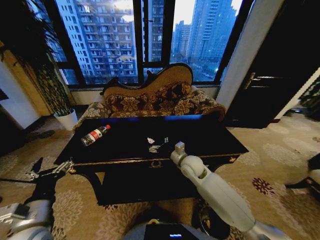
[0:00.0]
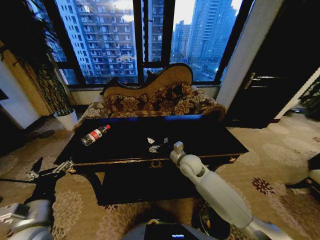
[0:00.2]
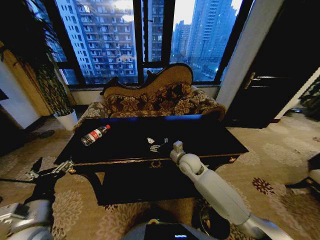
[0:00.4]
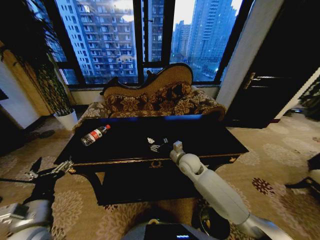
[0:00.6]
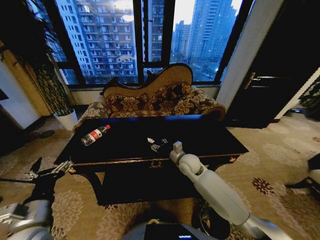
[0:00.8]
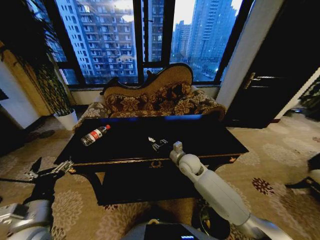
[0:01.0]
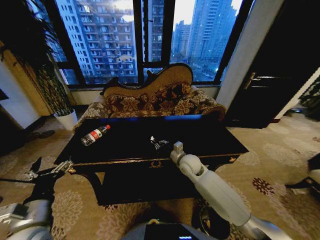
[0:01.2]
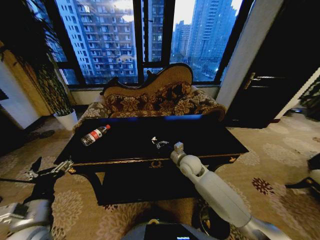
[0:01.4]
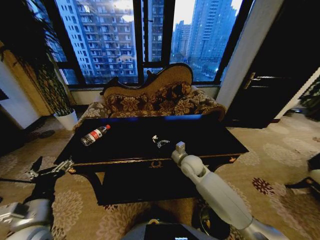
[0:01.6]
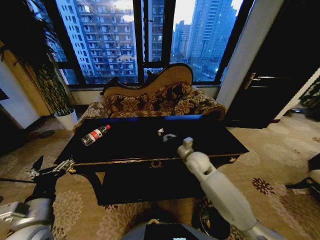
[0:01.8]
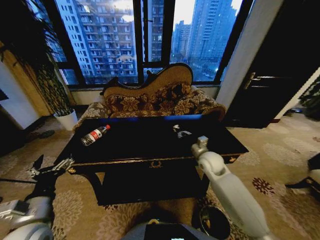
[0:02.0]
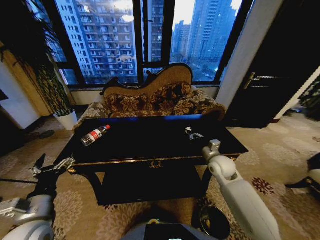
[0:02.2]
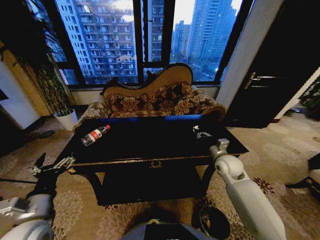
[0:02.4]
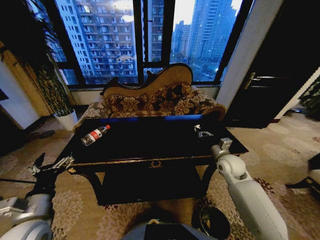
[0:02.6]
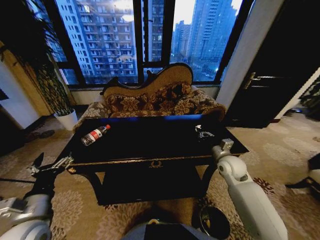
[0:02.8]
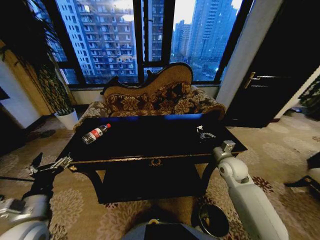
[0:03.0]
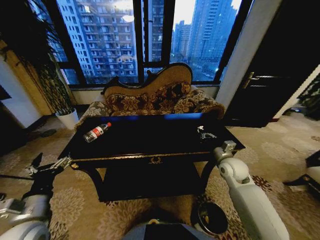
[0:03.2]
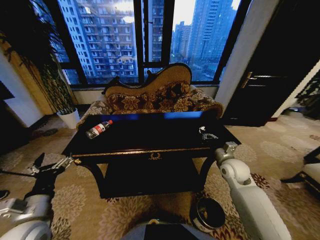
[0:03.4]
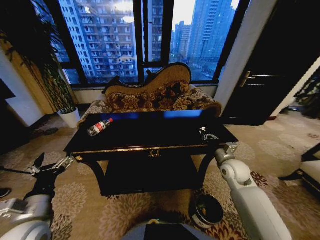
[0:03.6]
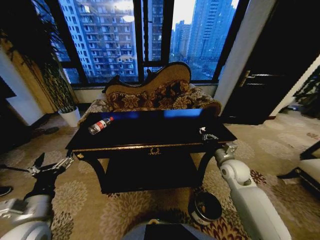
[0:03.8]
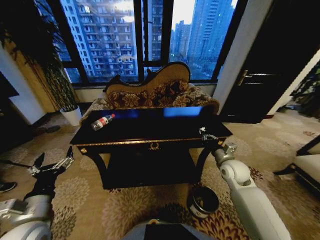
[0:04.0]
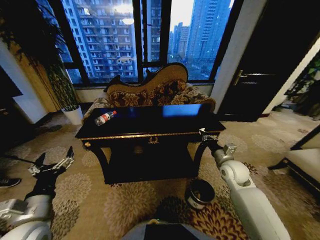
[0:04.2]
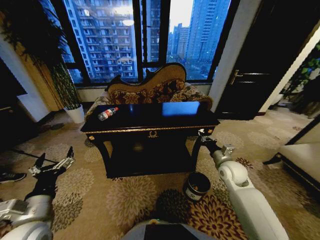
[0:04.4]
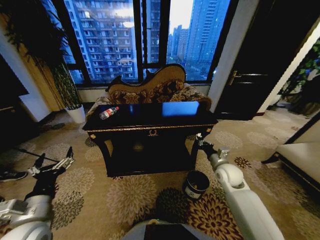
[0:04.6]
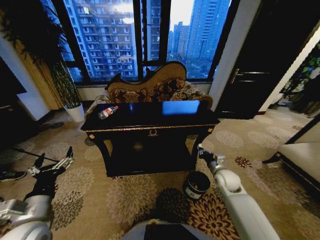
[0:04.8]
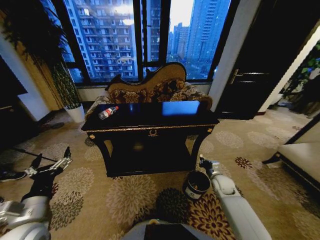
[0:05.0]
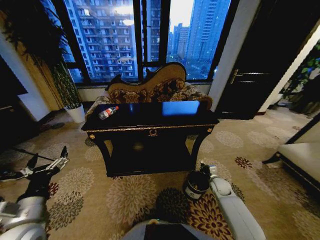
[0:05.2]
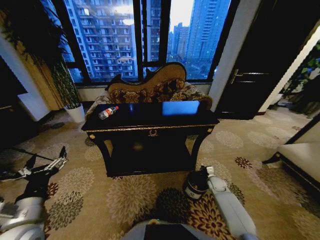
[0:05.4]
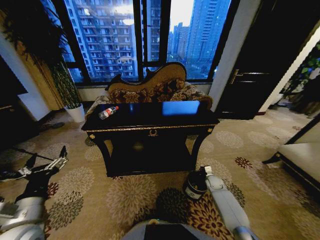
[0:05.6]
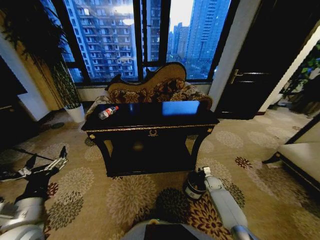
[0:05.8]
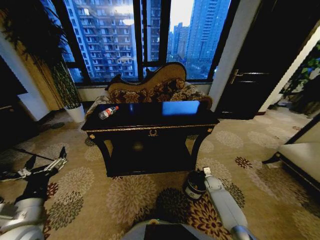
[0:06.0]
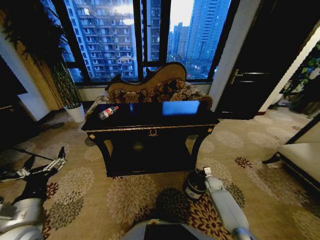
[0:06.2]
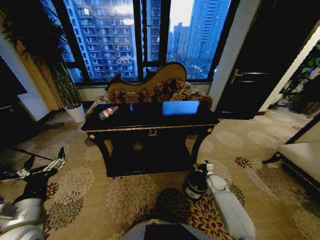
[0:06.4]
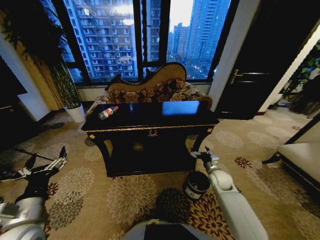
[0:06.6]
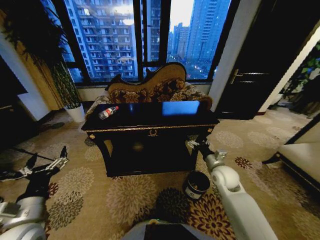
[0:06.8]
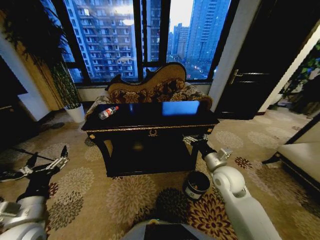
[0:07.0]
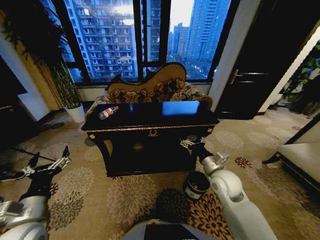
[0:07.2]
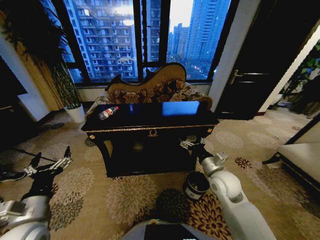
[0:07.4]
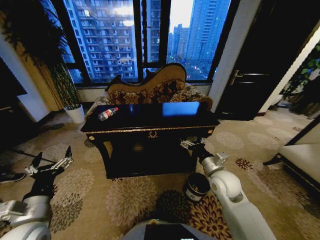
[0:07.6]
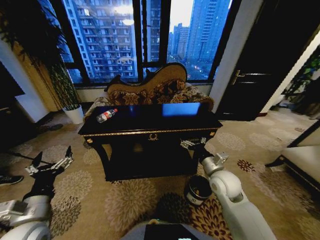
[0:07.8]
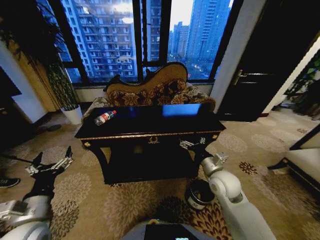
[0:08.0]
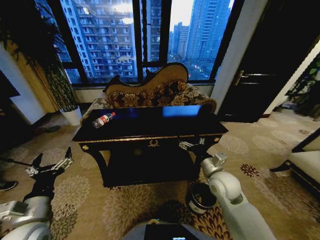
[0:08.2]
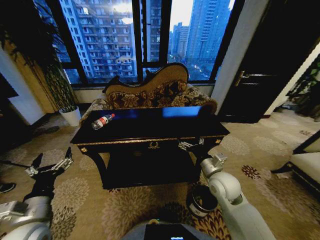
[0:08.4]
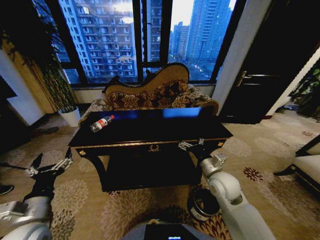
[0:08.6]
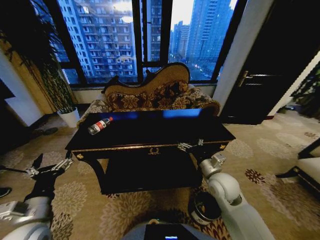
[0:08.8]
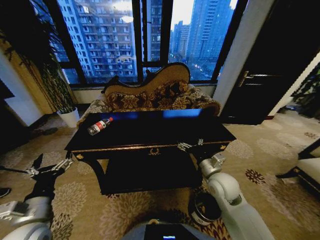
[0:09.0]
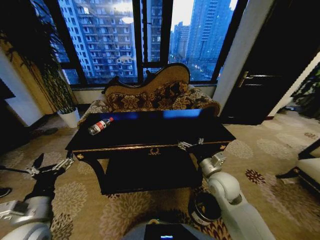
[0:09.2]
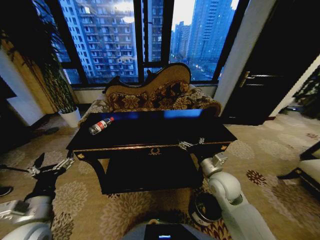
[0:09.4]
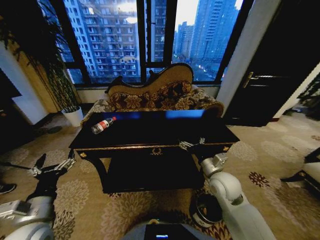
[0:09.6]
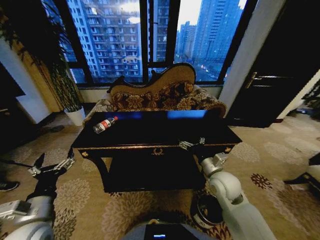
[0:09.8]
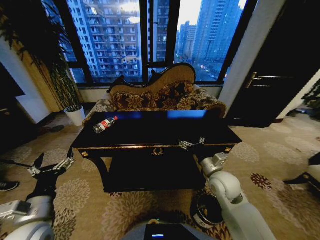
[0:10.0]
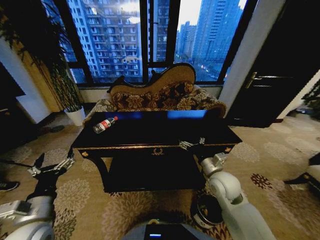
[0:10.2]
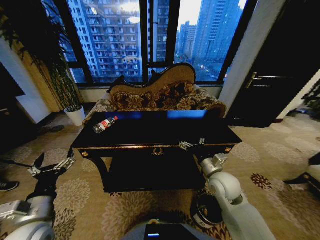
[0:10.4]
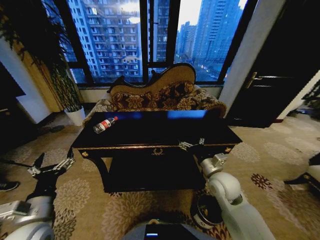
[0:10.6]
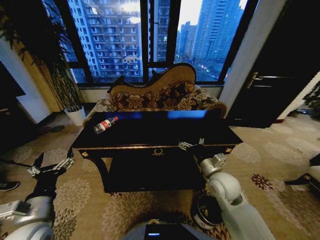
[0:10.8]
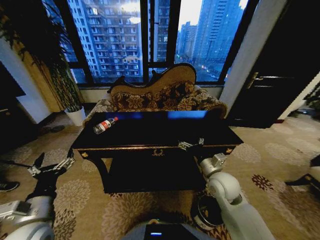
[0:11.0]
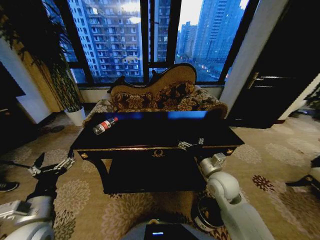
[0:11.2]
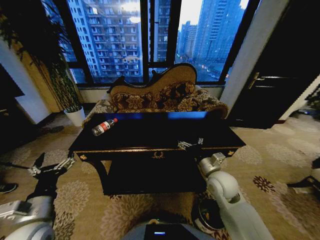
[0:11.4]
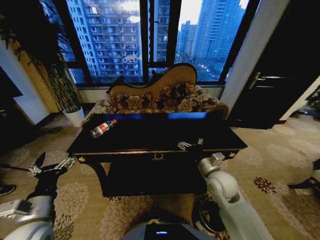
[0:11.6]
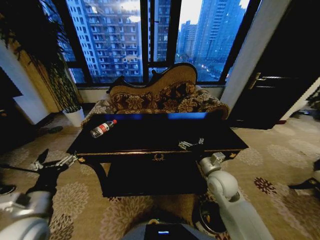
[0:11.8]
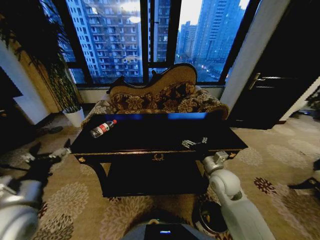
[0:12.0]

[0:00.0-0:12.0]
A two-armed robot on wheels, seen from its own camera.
Task of the whole recording: Move to the front of the table and place the trash on the table into the trash bin.
0:00.0 to 0:01.6: The right gripper closes.
0:01.6 to 0:03.0: The right gripper heads to the right, covering about 15 cm.
0:04.4 to 0:06.0: The right gripper heads downward, covering some 25 cm, and opens.
0:06.0 to 0:07.6: The right gripper is displaced upward and to the left by approximately 30 cm, and opens up.
0:10.4 to 0:12.0: The left gripper heads upward, covering some 5 cm.

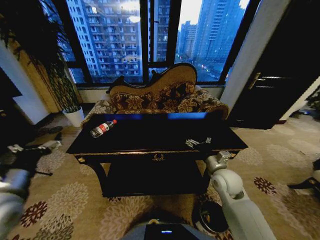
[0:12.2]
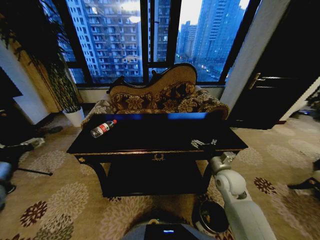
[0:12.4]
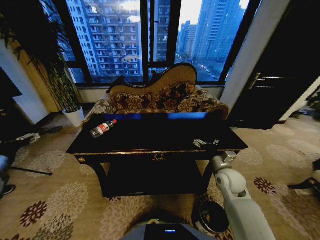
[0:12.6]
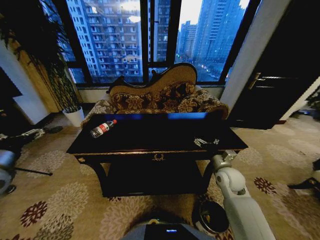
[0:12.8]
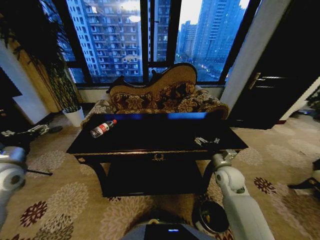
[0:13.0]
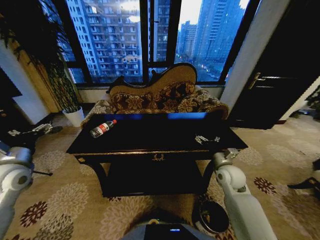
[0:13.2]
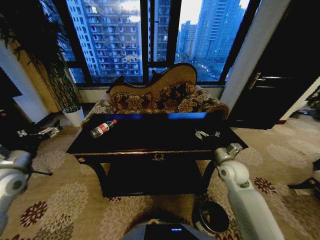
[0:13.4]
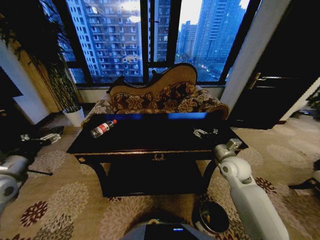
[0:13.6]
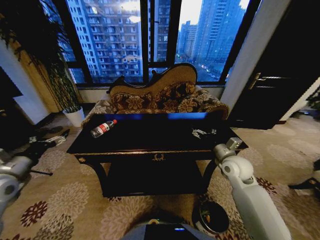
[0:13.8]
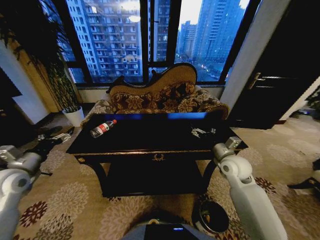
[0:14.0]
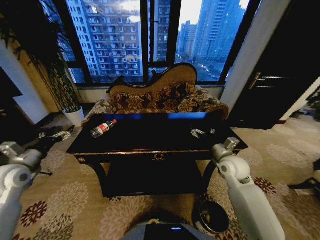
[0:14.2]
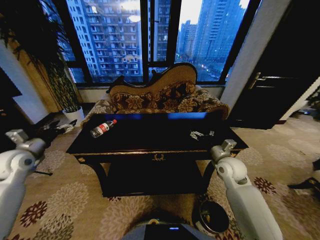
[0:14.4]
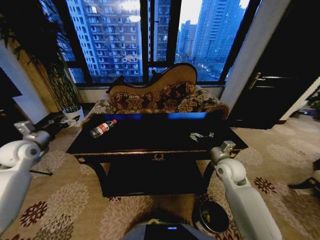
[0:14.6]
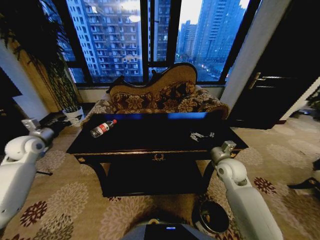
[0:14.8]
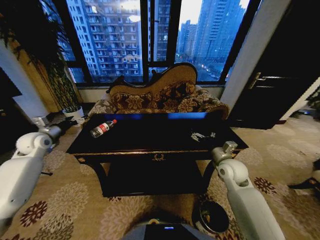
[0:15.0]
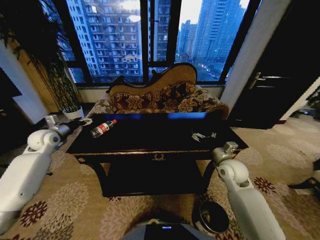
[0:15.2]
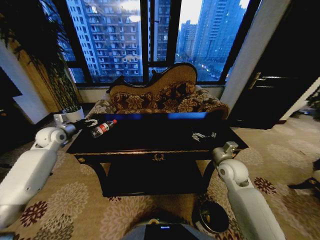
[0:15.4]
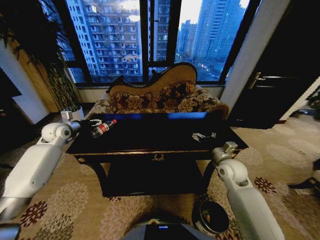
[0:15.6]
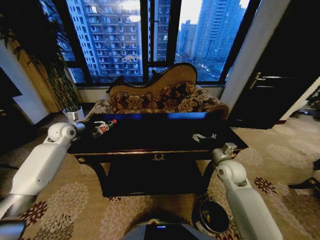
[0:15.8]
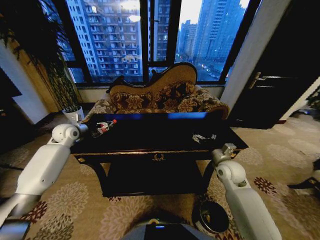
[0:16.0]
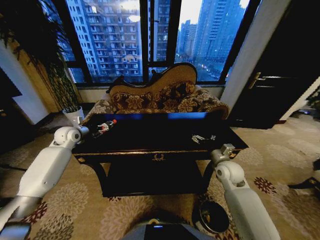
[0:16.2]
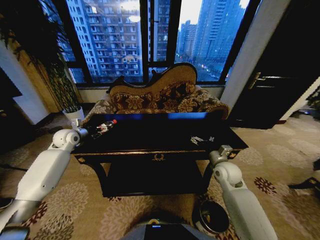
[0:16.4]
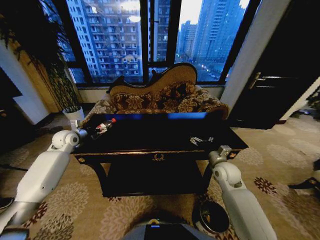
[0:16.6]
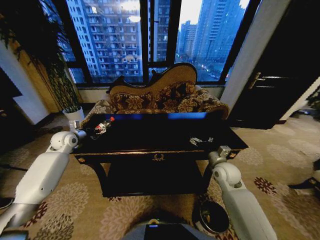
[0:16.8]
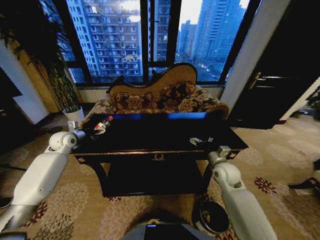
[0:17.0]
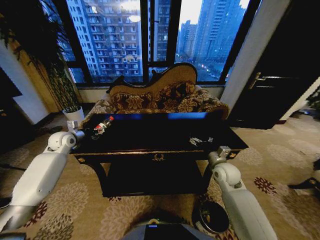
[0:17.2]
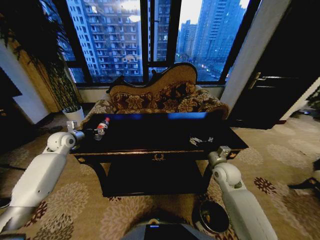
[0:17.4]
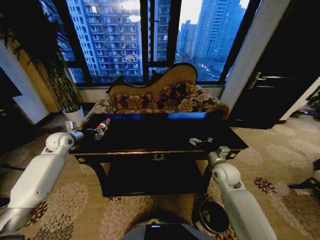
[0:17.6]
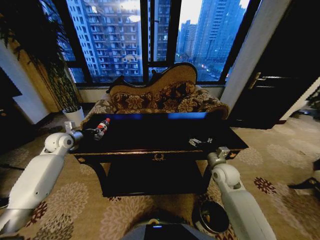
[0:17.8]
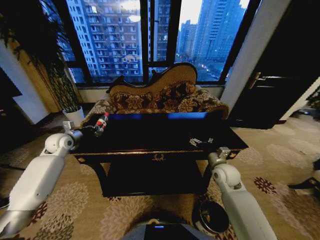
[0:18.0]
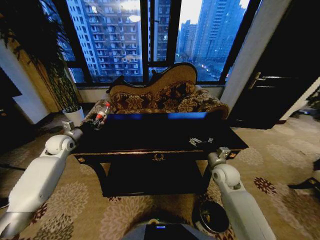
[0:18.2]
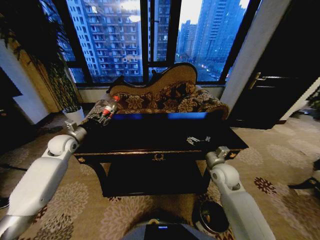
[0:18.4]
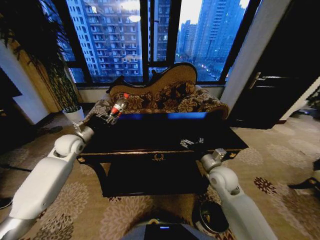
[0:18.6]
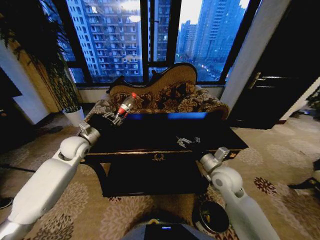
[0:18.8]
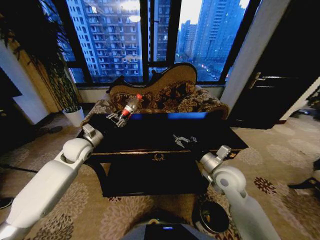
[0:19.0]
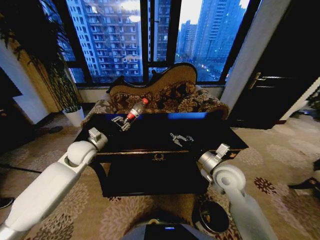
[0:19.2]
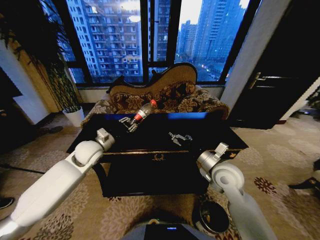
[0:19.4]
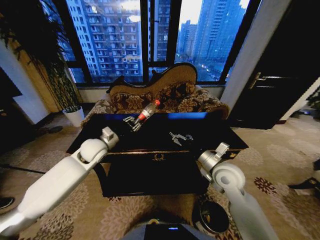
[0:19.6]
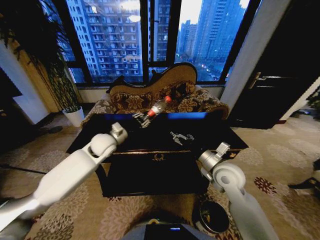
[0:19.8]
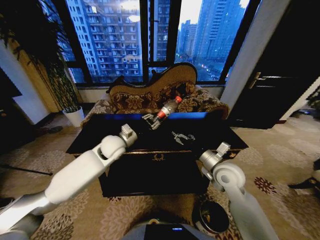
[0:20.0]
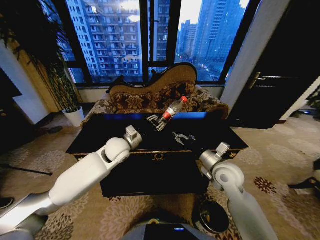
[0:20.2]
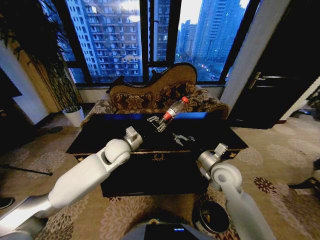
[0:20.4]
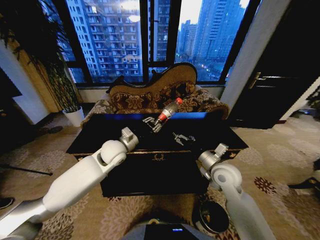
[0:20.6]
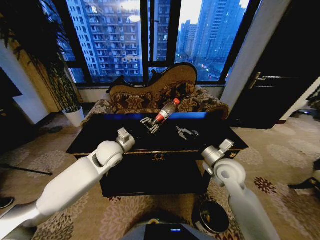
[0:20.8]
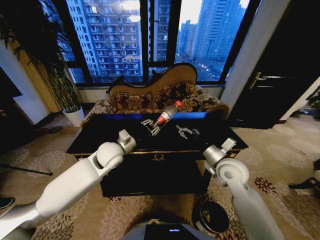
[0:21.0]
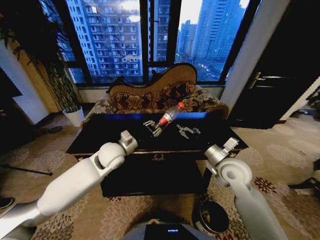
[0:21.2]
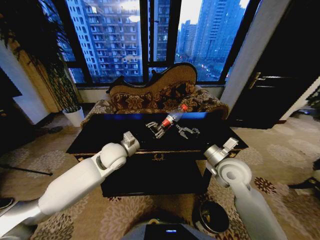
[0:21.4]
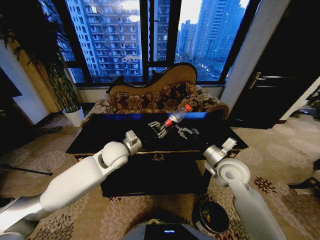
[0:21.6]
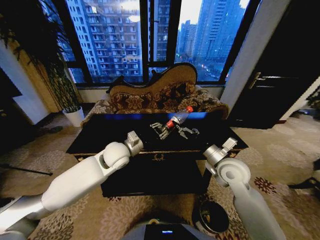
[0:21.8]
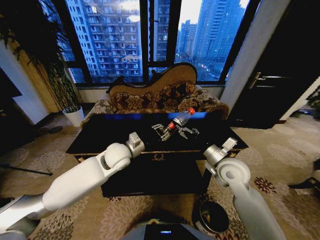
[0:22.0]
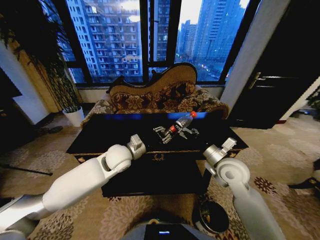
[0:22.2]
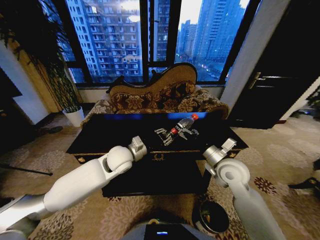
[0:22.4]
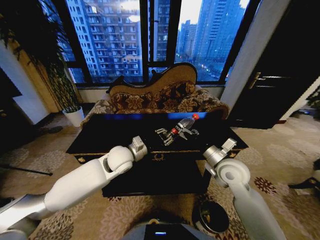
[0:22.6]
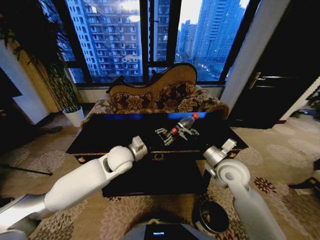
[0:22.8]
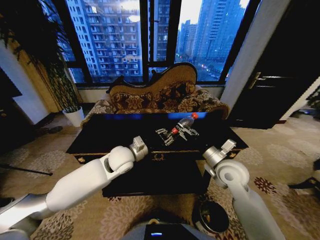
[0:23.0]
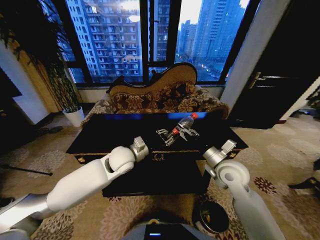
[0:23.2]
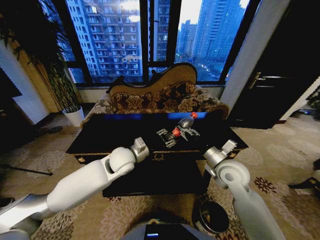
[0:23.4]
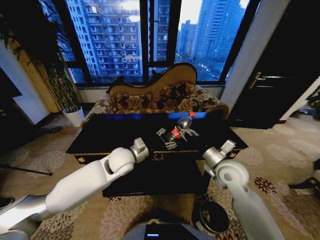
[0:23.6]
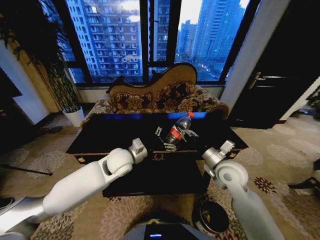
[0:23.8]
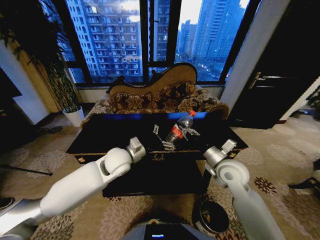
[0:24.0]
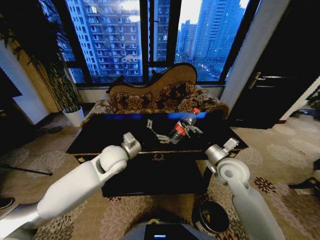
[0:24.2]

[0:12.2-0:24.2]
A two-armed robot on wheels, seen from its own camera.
Task of the whole recording: Move to the front of the table and place the trash on the table into the trash bin.
0:12.2 to 0:13.8: The right gripper moves roughly 5 cm. Meanwhile the left gripper shifts approximately 10 cm to the left and forward.
0:13.8 to 0:15.2: The left gripper shifts about 20 cm forward.
0:15.2 to 0:16.6: The left gripper heads to the right, covering roughly 5 cm.
0:16.6 to 0:18.2: The left gripper closes its fingers.
0:18.2 to 0:19.8: The right gripper is displaced upward and to the left by about 10 cm; the left gripper goes about 20 cm to the right.
0:19.8 to 0:21.2: The left gripper shifts approximately 5 cm backward.
0:21.2 to 0:22.6: The grippers make only small movements.
0:22.6 to 0:24.2: The left gripper opens up, while the right gripper closes.
